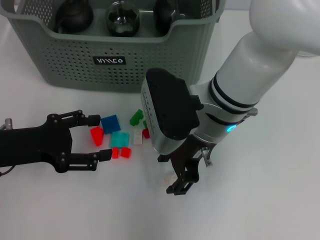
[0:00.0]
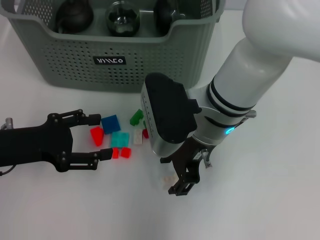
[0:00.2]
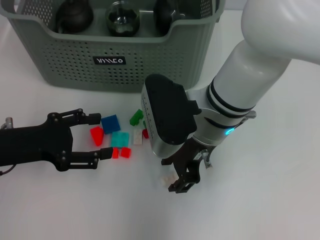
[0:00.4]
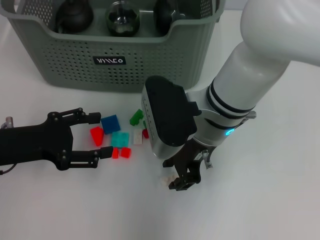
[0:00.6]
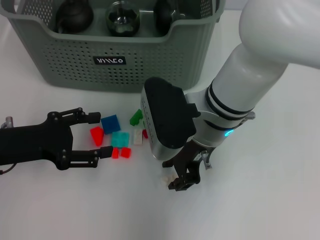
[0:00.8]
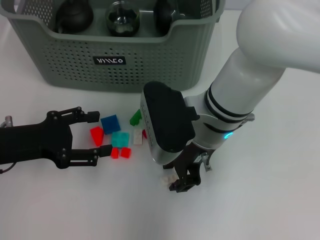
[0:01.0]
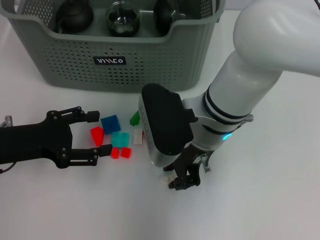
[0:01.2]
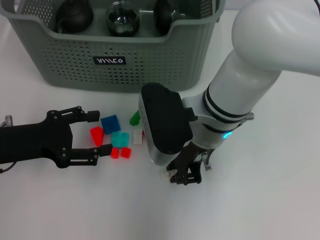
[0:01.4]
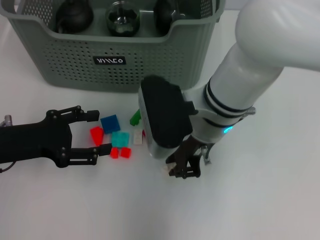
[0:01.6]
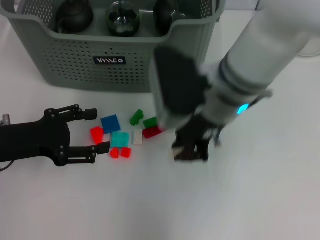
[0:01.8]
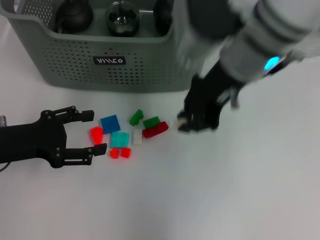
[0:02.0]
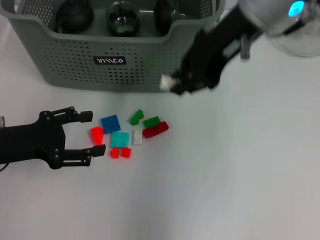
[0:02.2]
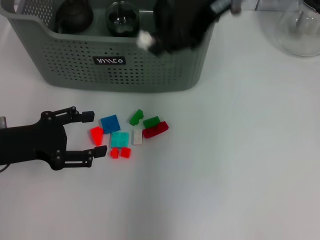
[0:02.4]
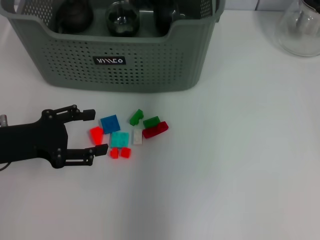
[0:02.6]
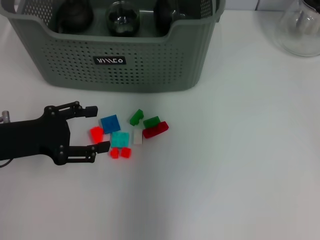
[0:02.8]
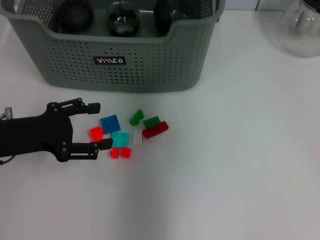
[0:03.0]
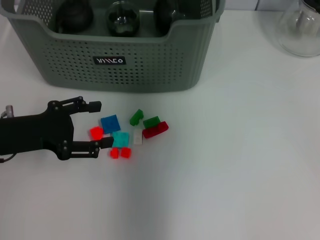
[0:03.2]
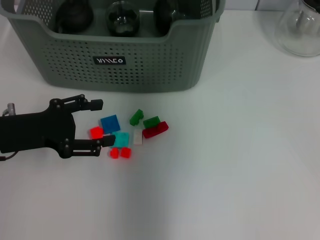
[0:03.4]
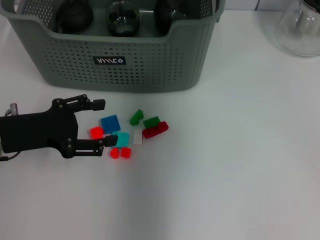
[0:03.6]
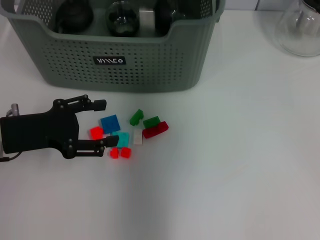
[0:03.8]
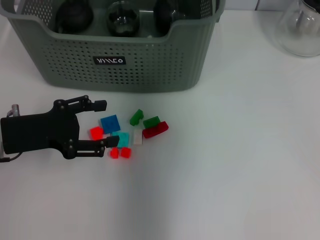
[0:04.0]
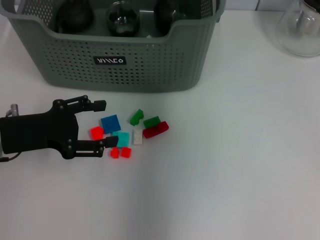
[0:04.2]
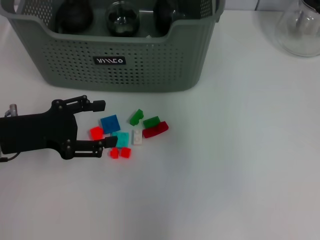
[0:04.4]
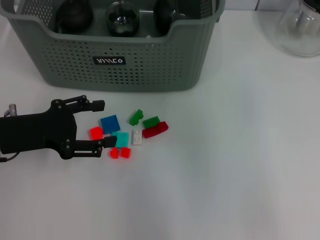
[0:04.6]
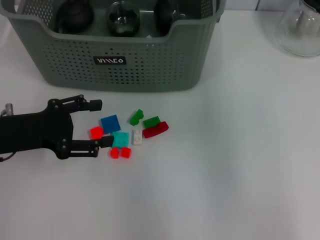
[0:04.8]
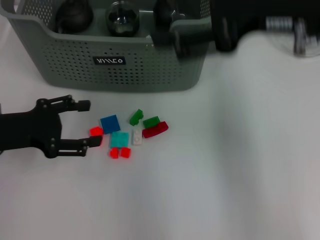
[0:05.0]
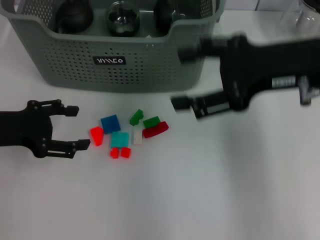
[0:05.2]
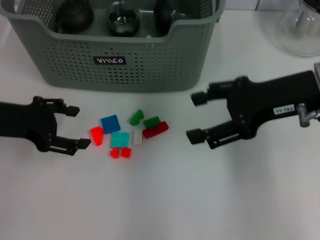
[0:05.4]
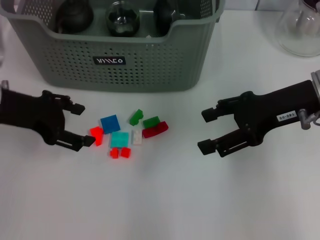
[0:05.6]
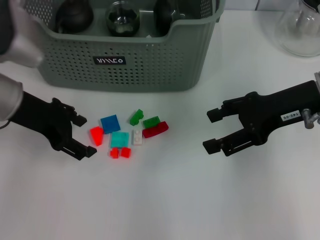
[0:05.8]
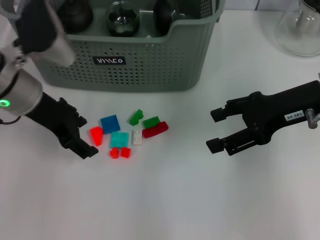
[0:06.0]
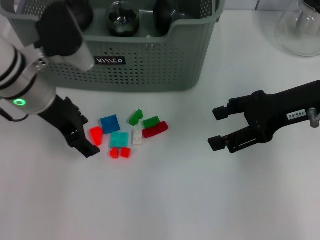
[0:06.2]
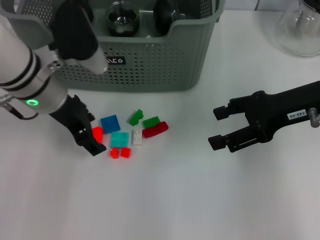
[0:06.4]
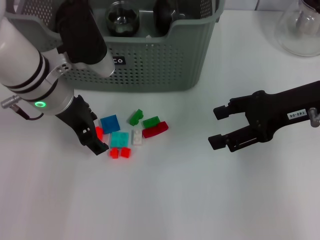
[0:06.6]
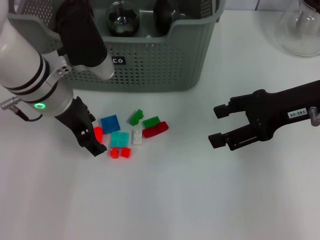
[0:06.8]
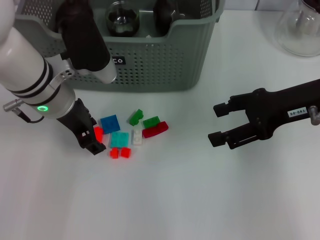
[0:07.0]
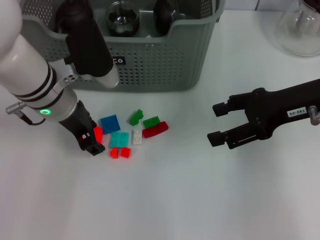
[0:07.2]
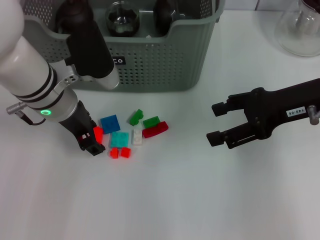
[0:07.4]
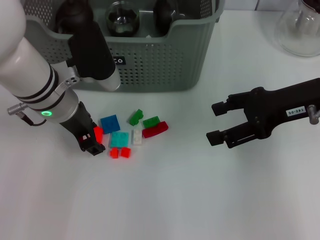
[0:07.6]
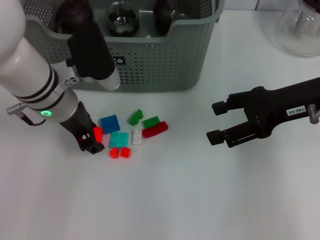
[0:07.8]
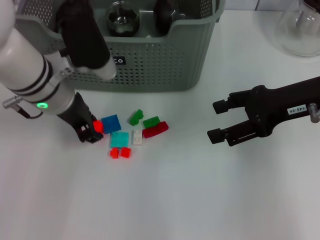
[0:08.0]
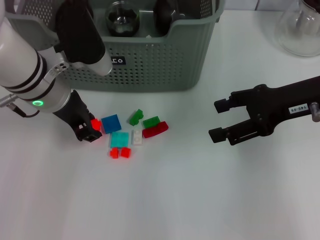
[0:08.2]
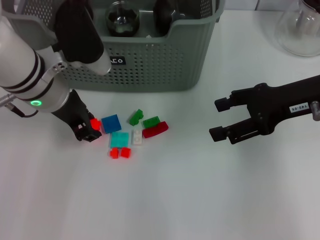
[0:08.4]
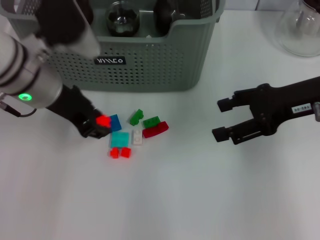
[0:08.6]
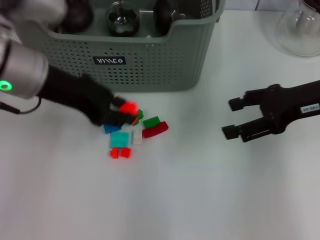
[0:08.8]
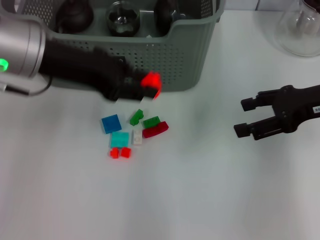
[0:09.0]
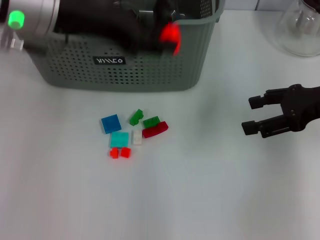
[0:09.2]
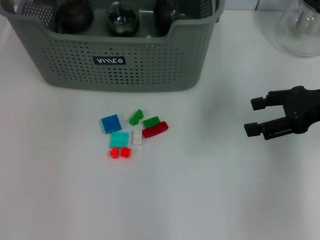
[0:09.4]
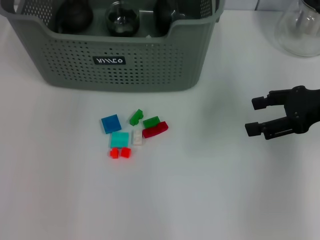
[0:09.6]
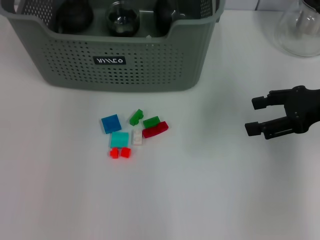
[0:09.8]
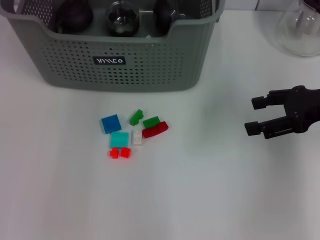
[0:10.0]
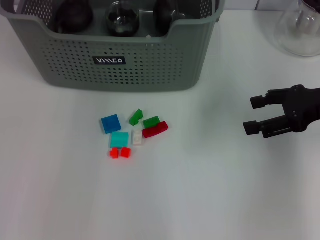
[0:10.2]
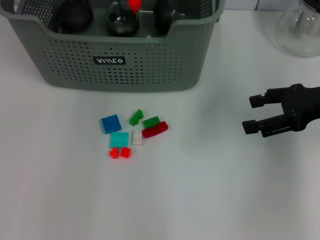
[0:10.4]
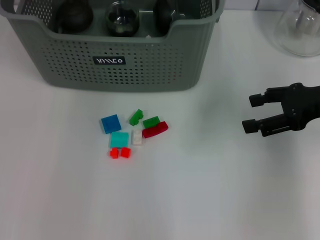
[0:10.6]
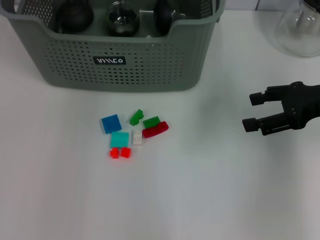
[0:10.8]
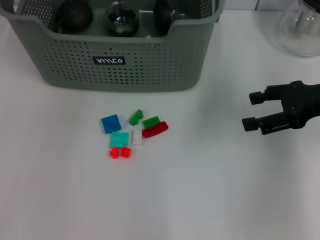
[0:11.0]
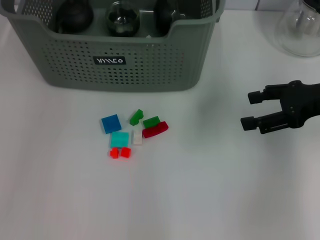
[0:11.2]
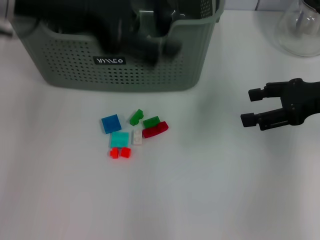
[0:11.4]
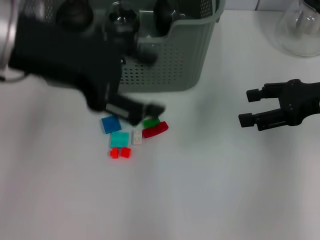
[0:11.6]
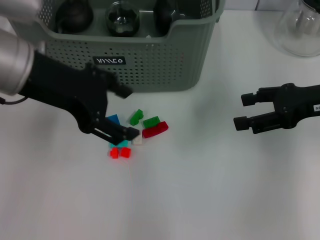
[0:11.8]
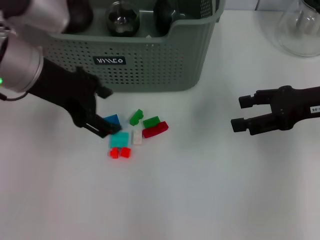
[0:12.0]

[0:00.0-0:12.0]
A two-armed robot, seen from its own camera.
Task of the whole recording: pick up the teacup on the table and place it into the storage bin, pick up the block on the table and place it into the storage bin.
Step, 1.6 to 4.0 s: Place the white block in the storage box with right gripper.
Step, 4.2 to 7.8 s: Grasp the orange block with left gripper.
Step, 8.0 to 10.4 s: Place the orange block in the storage box with left gripper.
0.0 to 1.6 s: The right gripper closes up.
1.6 to 3.0 s: The right gripper shifts about 20 cm forward and upward.
3.0 to 4.4 s: The right gripper opens its fingers.
4.4 to 6.0 s: The left gripper shifts roughly 10 cm forward, to the right and upward. Meanwhile the right gripper travels to the right, downward and backward by about 20 cm.
6.0 to 7.6 s: The left gripper ends up approximately 5 cm from where it was.
7.6 to 9.0 s: The left gripper goes about 10 cm upward.
9.0 to 10.4 s: The left gripper goes about 15 cm forward.
10.4 to 12.0 s: The left gripper goes some 15 cm backward and to the left, and opens up.

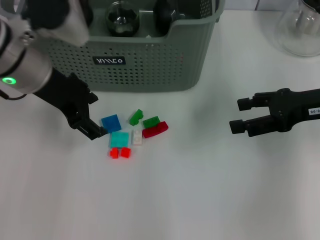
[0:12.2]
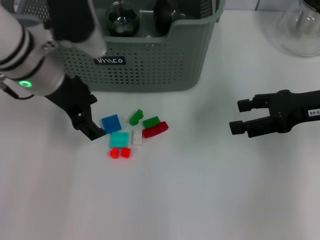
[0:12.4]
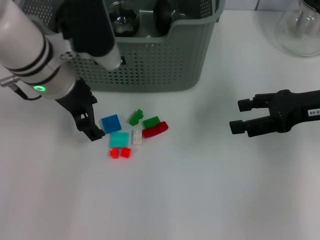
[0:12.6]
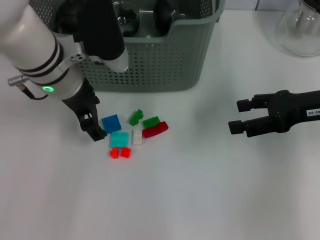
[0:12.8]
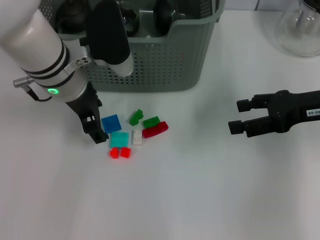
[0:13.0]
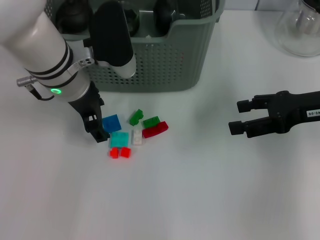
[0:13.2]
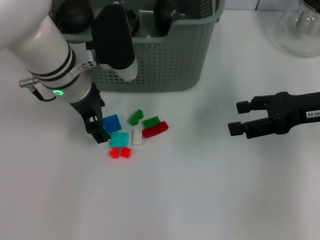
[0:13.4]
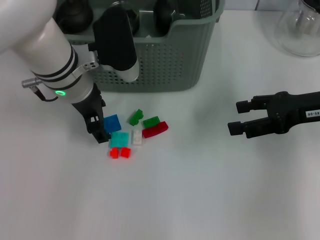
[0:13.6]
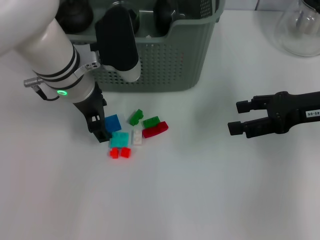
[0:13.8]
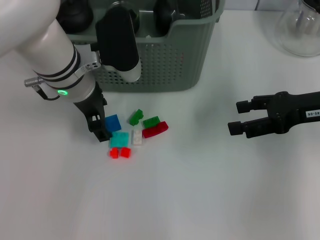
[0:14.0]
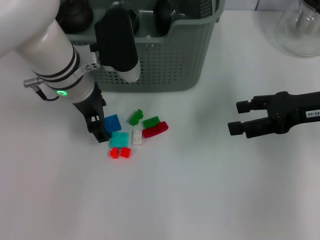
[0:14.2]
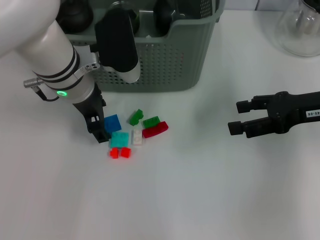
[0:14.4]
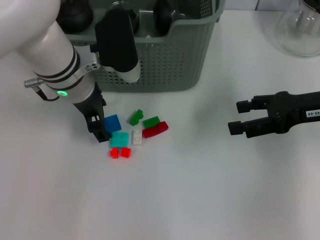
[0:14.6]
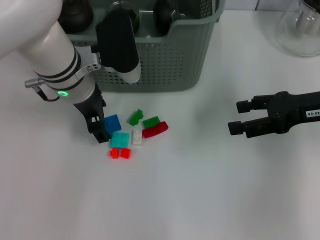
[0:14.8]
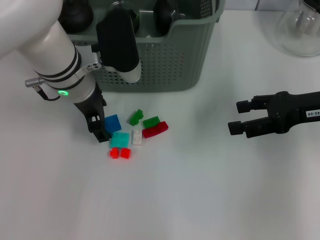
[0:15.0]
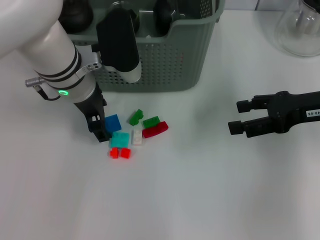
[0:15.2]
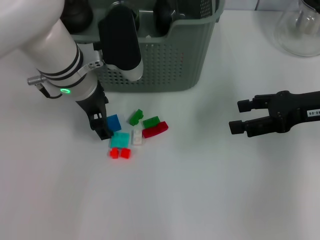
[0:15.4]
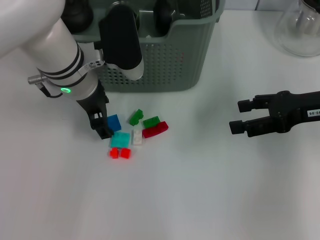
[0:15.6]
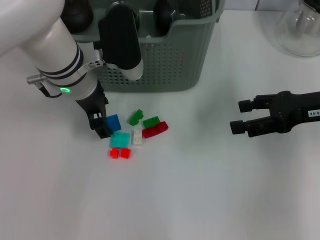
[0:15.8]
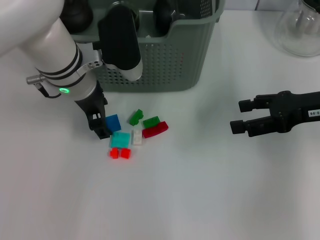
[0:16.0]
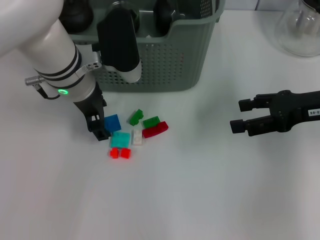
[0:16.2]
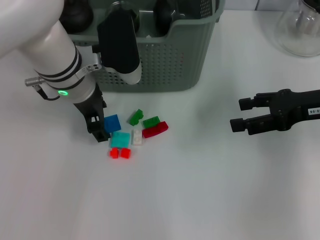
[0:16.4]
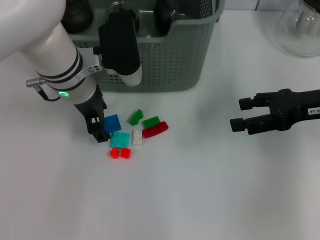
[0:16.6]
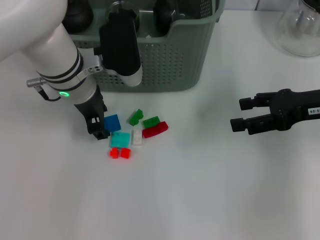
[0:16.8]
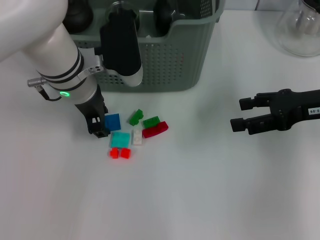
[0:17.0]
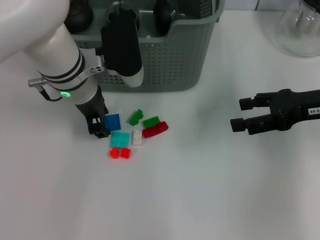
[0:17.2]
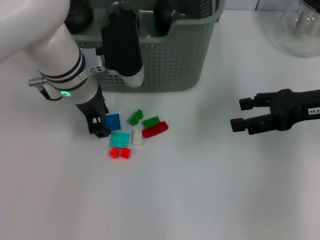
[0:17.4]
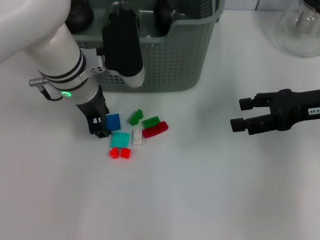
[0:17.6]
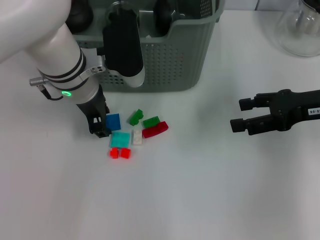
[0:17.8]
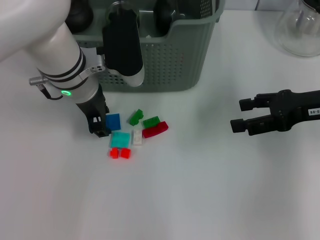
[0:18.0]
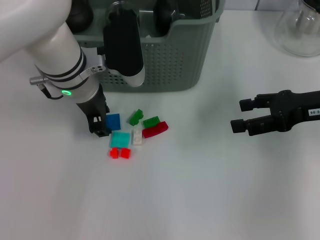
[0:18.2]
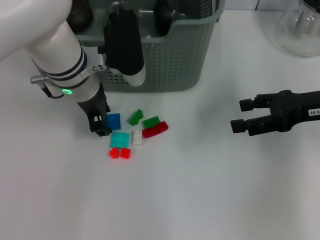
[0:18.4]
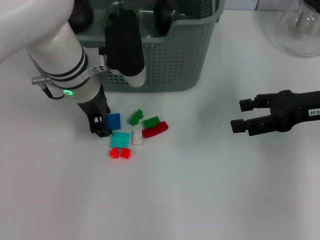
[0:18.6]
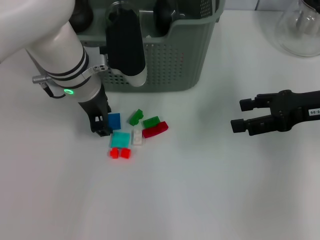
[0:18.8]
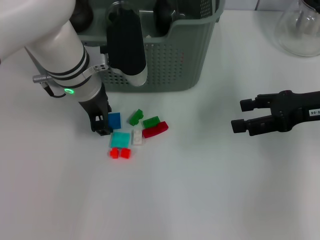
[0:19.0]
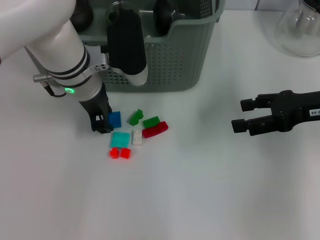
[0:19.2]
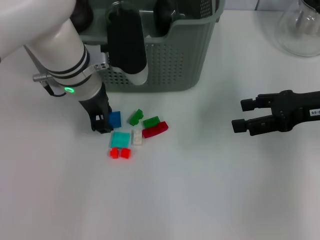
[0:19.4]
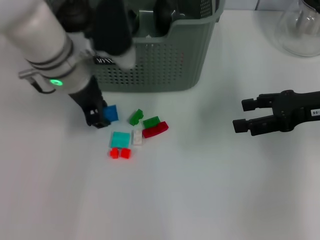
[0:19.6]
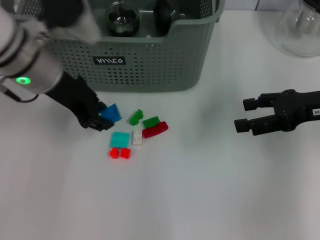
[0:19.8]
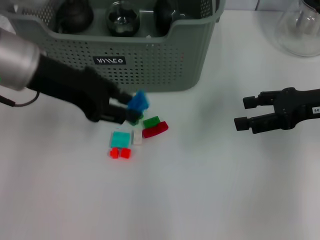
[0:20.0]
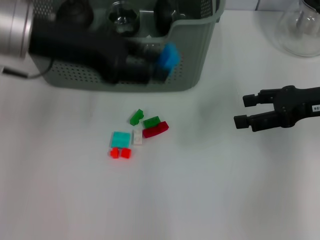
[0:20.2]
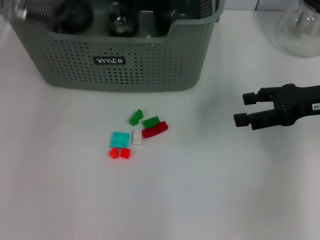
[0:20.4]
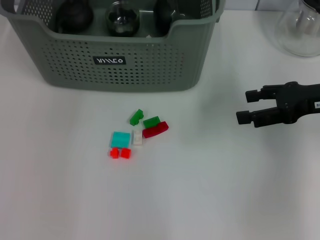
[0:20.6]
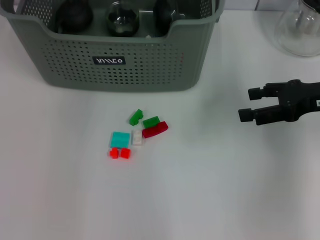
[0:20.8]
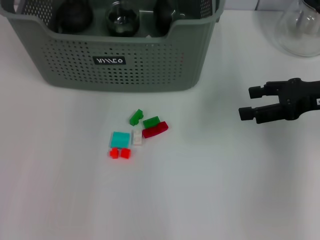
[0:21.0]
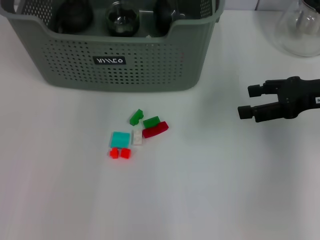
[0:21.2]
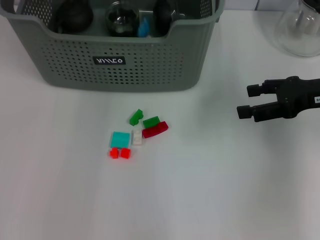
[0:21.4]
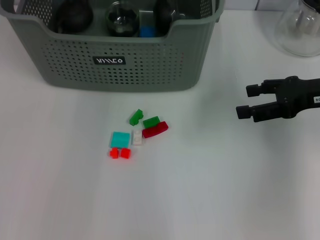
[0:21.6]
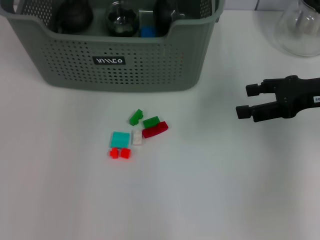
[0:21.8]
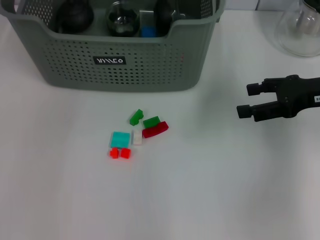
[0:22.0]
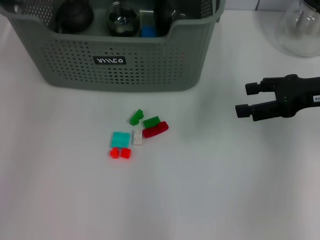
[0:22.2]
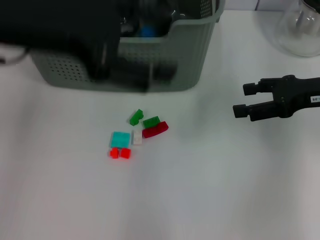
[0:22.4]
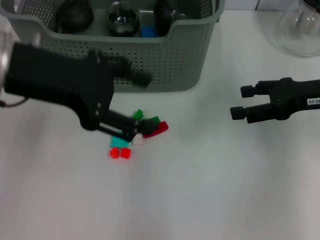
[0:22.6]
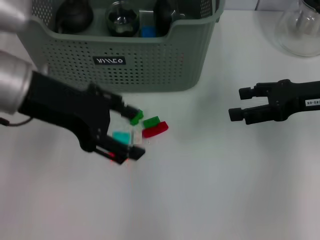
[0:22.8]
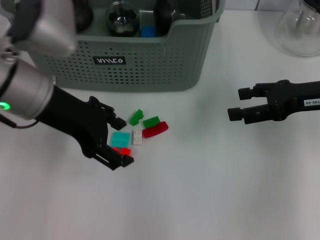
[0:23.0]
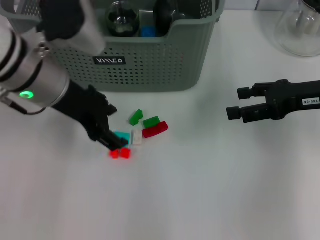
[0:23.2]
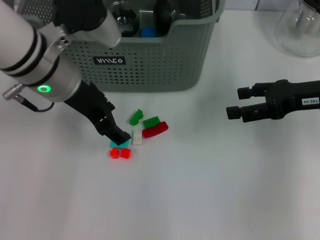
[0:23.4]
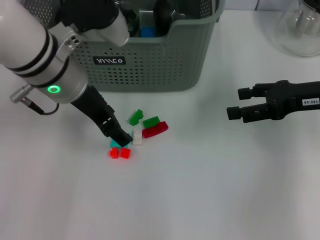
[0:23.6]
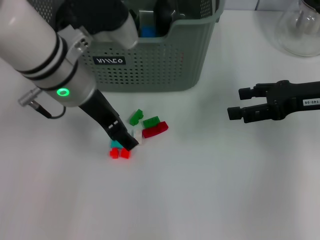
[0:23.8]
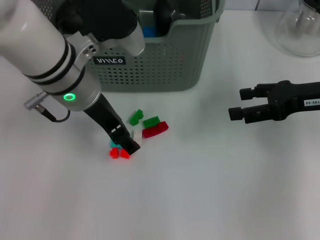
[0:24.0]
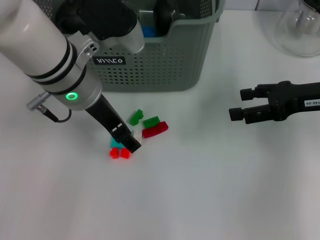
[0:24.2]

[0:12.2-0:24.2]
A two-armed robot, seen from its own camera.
Task of the whole recording: pick up the teacup on the table and place it into the storage bin, pick up the block on the table and place it into the storage bin.
Step, 12.2 to 19.2 s: Grasp the dark blue block with left gripper.
Step, 19.4 to 21.6 s: Place the dark blue block in the storage box with left gripper.
12.2 to 13.8 s: The left gripper moves to the right and downward, approximately 10 cm.
13.8 to 18.2 s: Both grippers stay put.
18.2 to 19.8 s: The left gripper shifts roughly 5 cm to the left.
19.8 to 21.2 s: The left gripper shifts about 15 cm forward, upward and to the right.
21.2 to 22.6 s: The left gripper goes approximately 20 cm backward and to the left, and opens its fingers.
22.6 to 24.2 s: The left gripper travels to the right and downward by approximately 10 cm.
